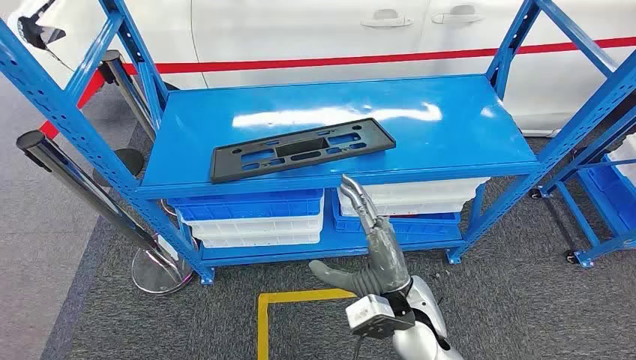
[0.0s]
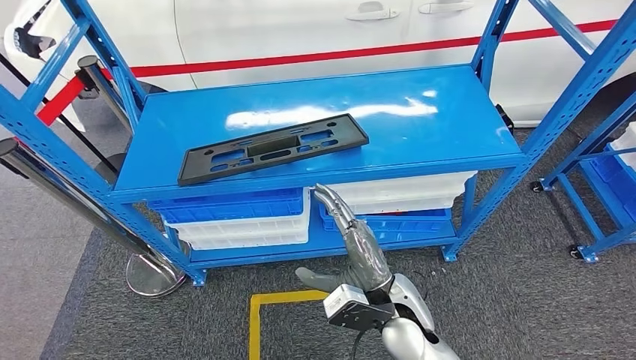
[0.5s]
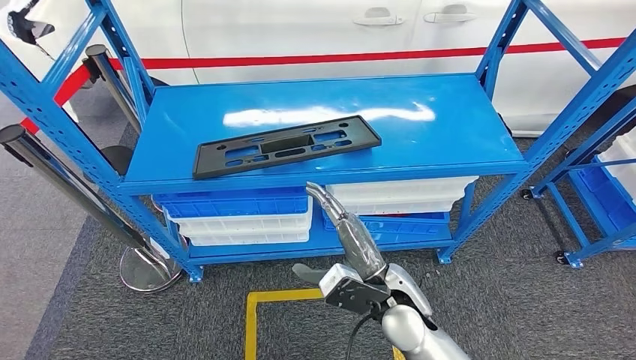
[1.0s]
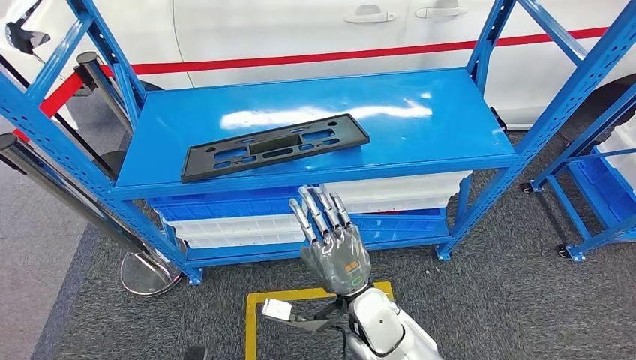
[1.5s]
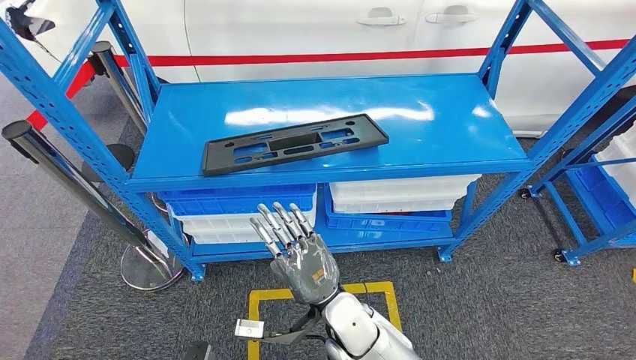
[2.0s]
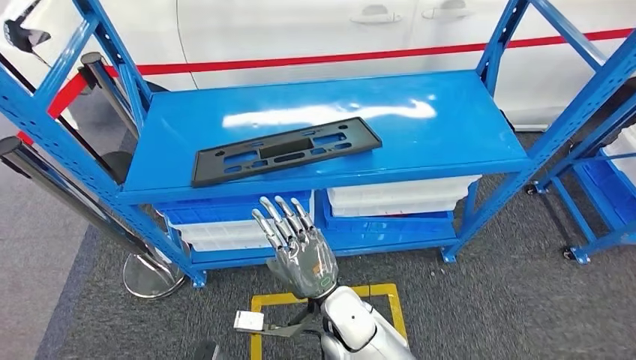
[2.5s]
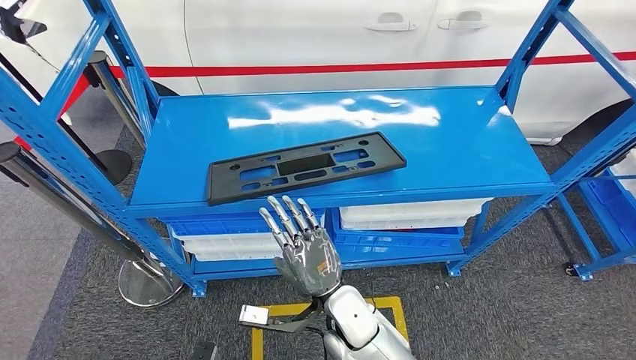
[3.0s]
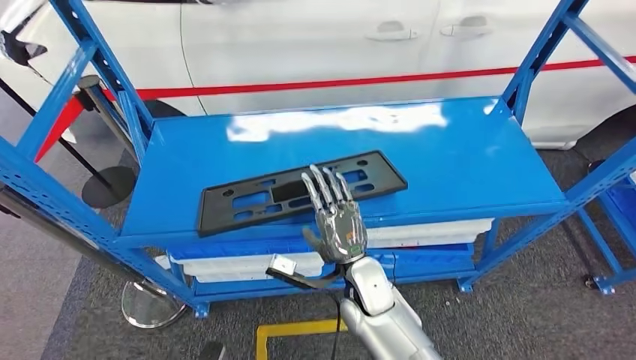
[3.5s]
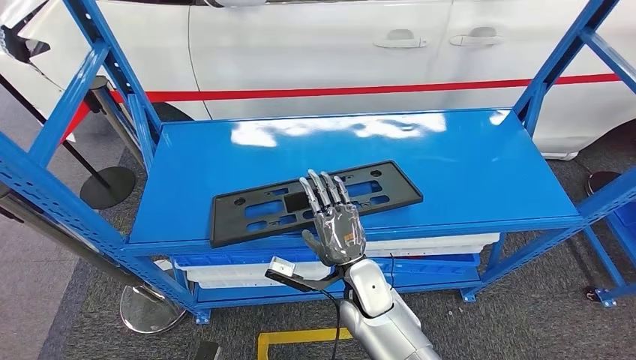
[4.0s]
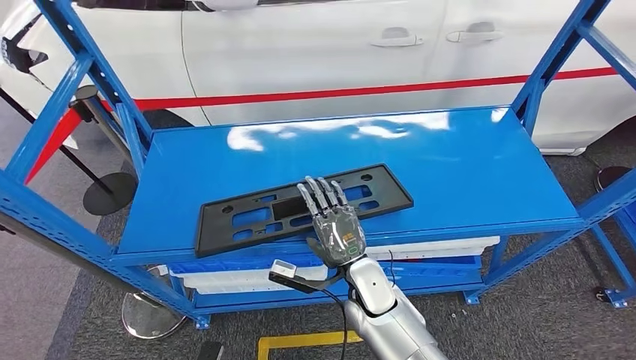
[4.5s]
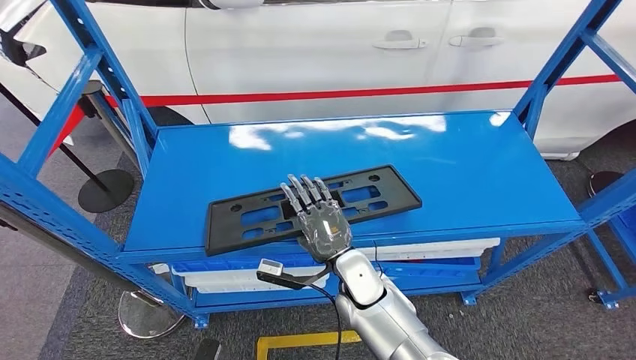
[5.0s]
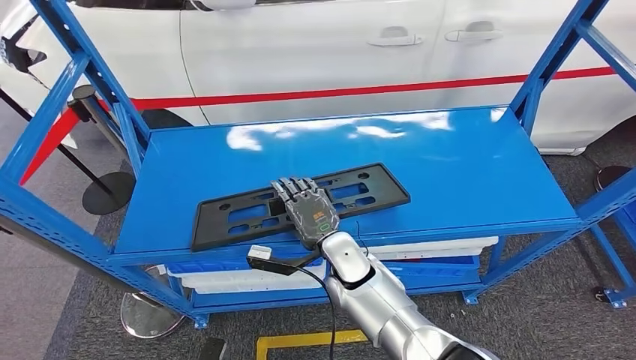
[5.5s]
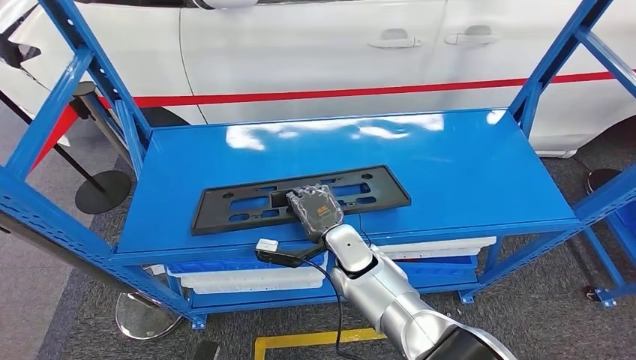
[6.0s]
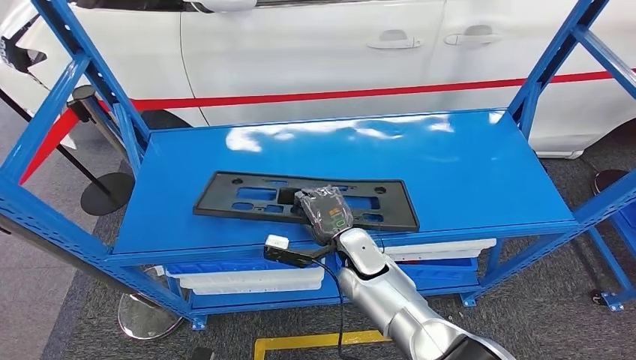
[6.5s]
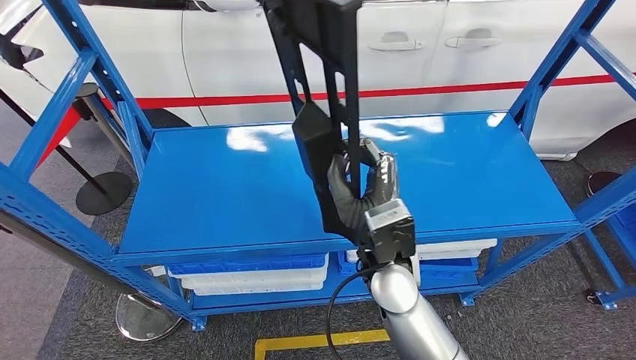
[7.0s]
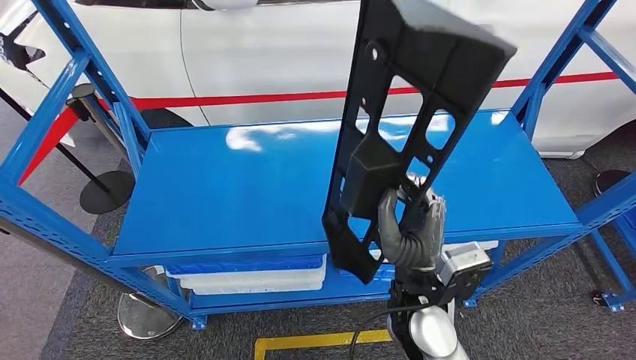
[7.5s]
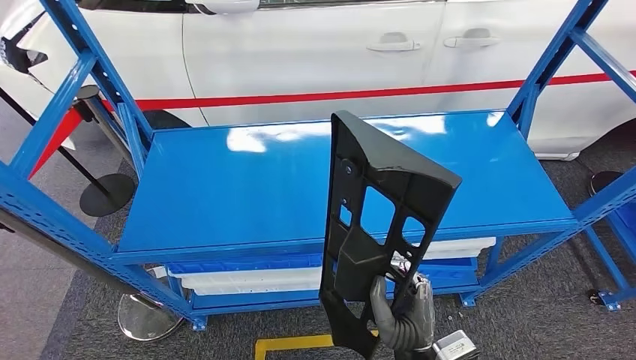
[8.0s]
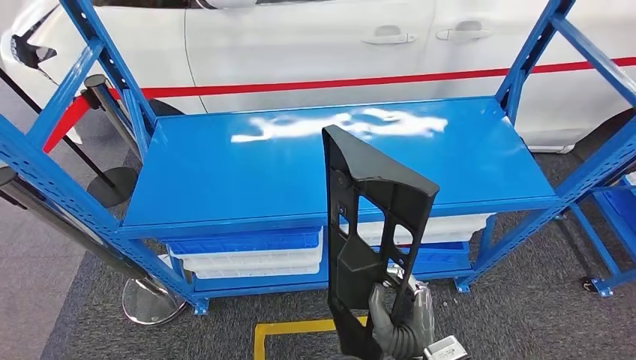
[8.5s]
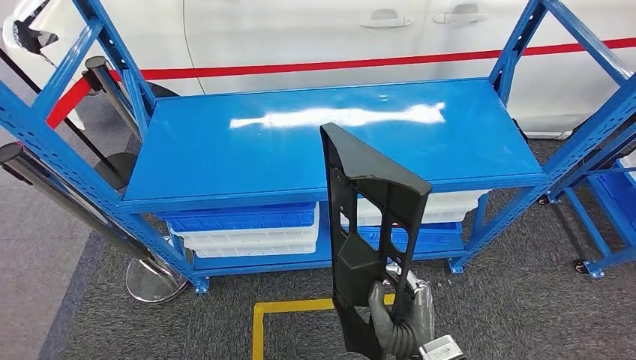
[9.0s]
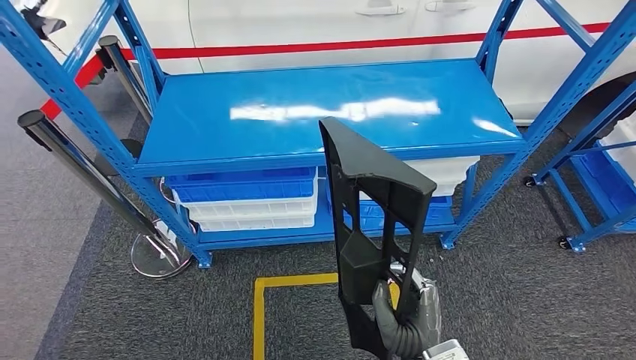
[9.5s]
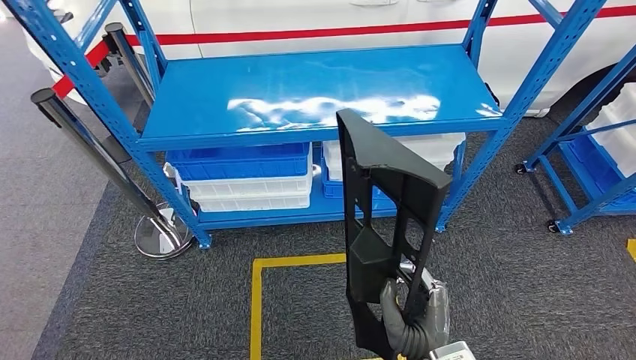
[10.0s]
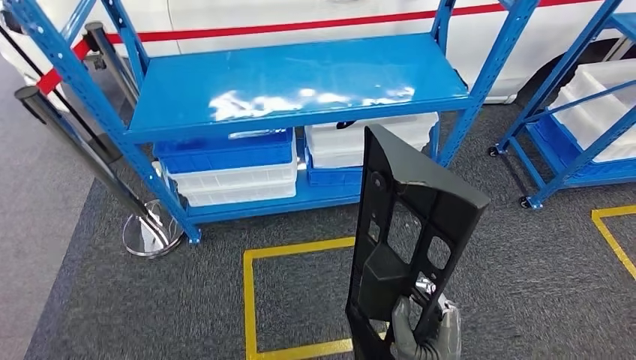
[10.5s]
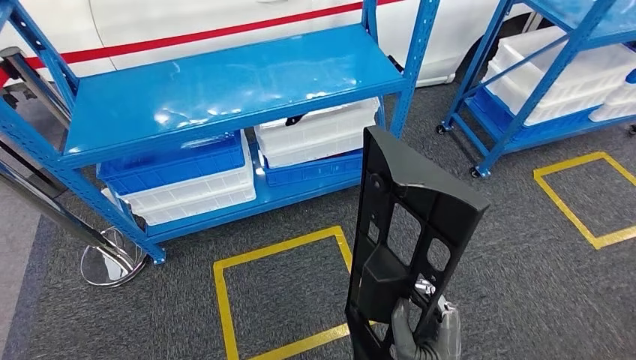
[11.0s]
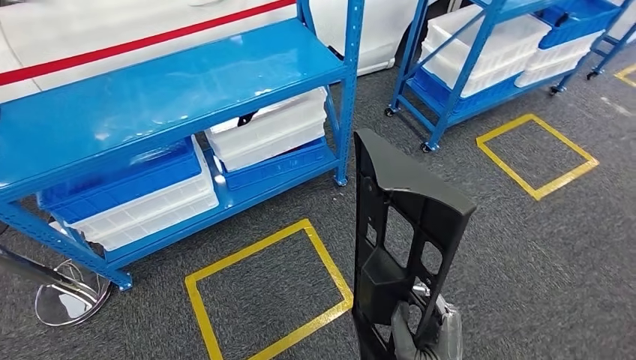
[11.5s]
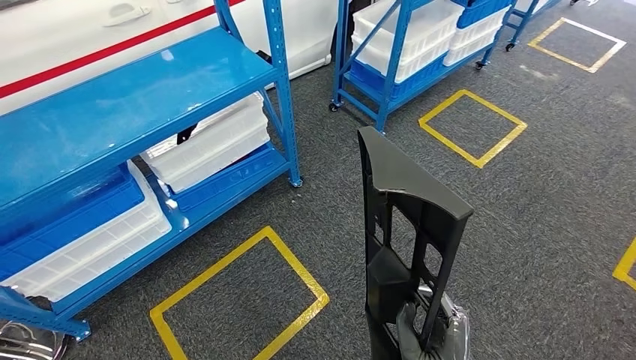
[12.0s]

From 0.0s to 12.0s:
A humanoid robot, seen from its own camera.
Step, from 0.0s to 9.0s: Pick up the large material from the shelf.

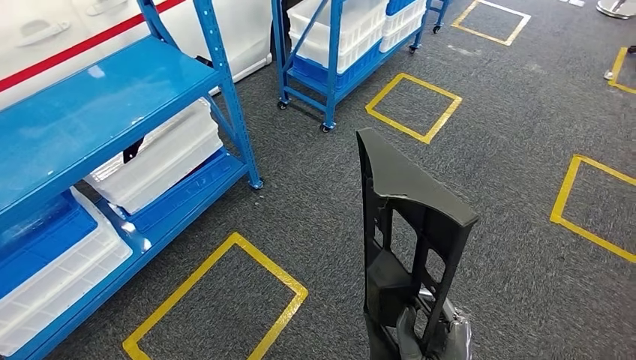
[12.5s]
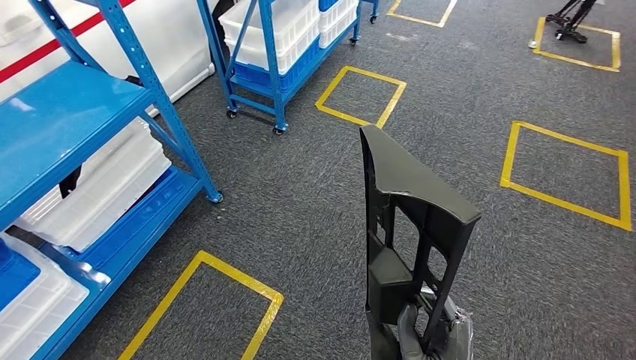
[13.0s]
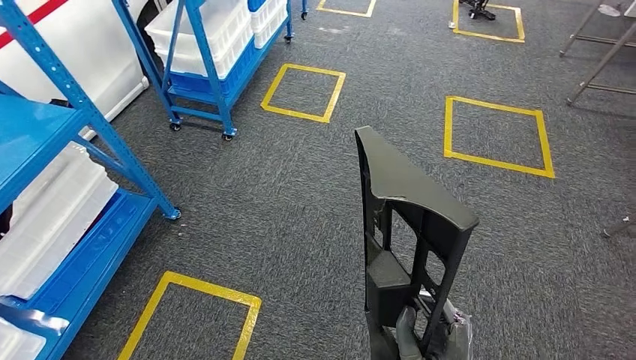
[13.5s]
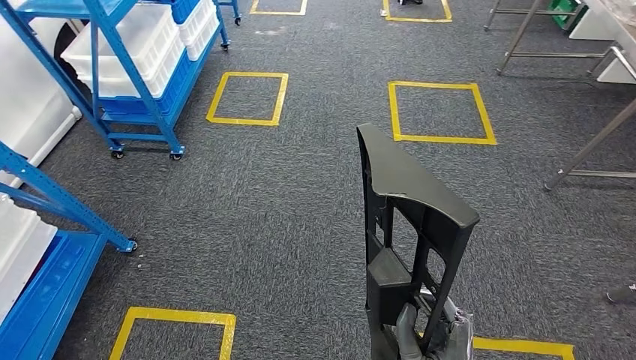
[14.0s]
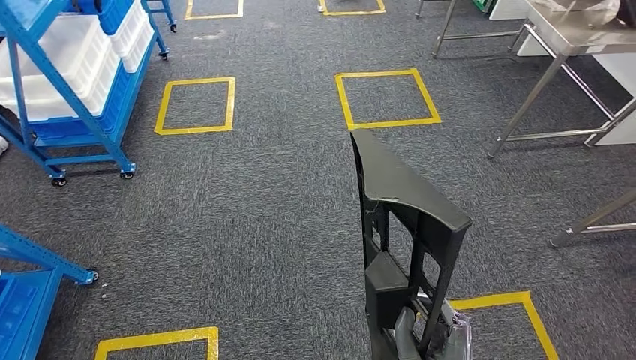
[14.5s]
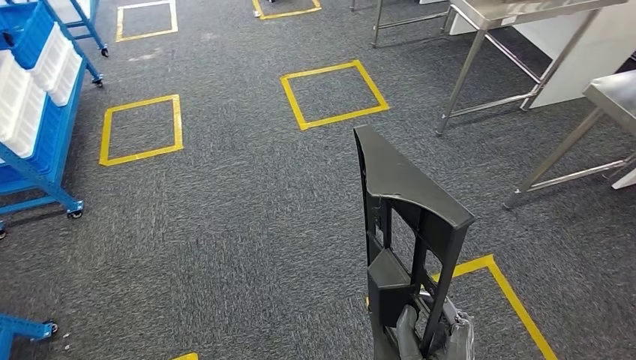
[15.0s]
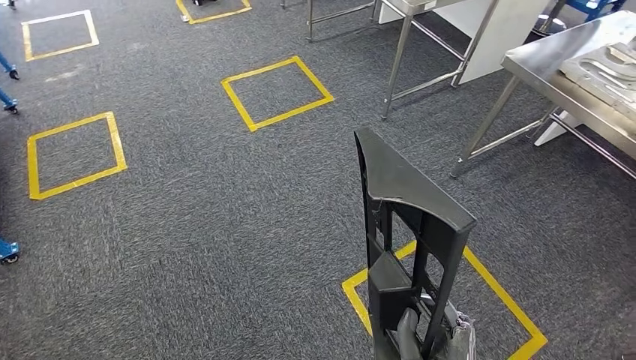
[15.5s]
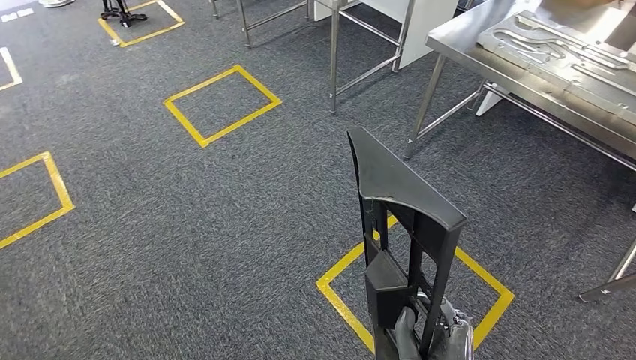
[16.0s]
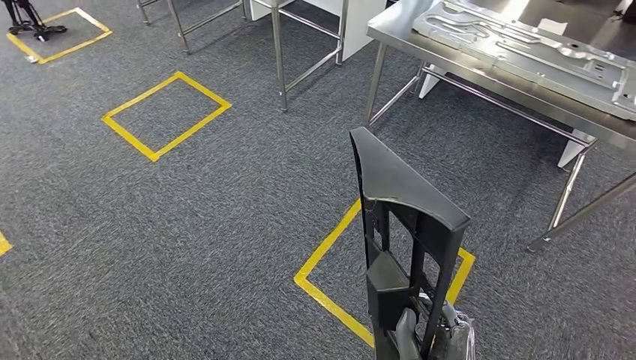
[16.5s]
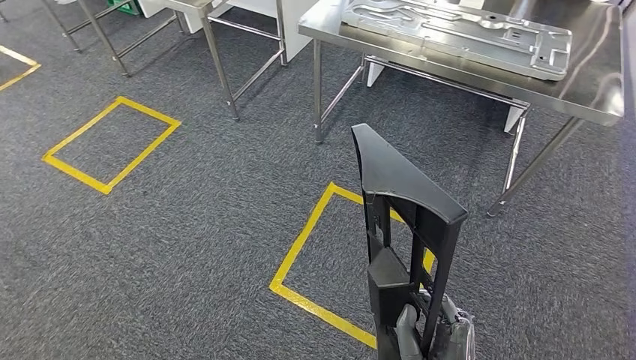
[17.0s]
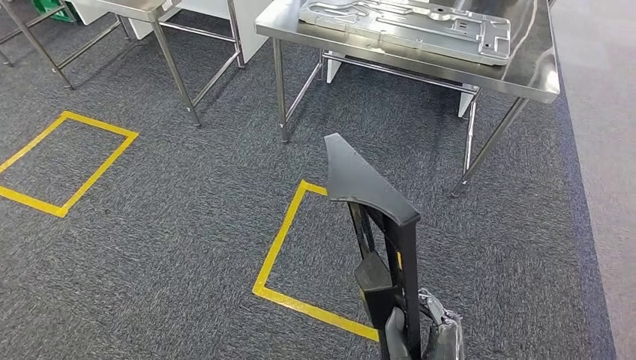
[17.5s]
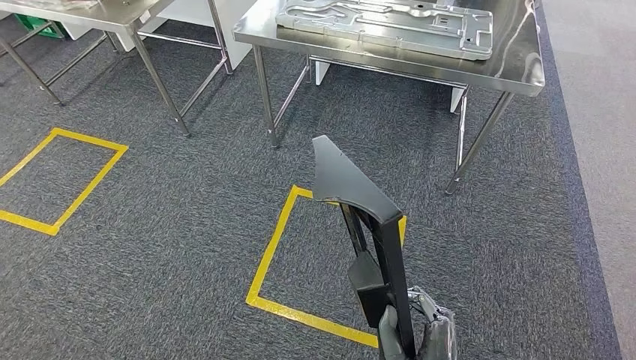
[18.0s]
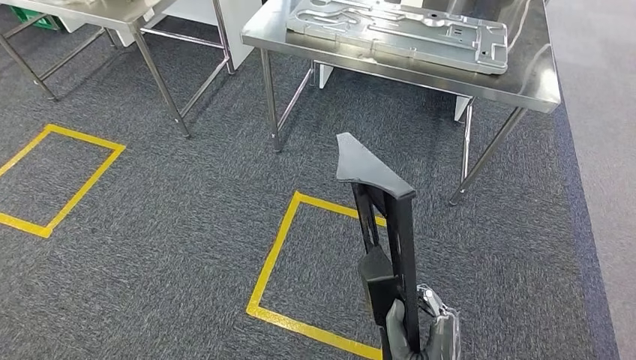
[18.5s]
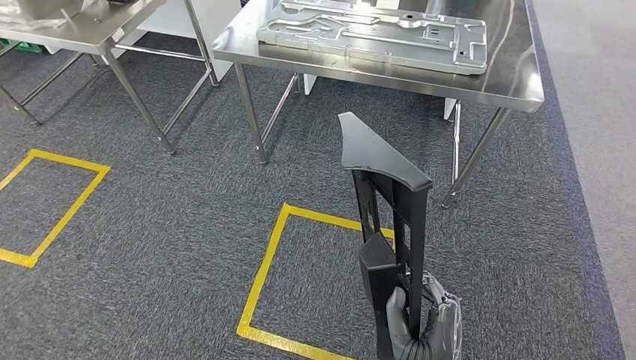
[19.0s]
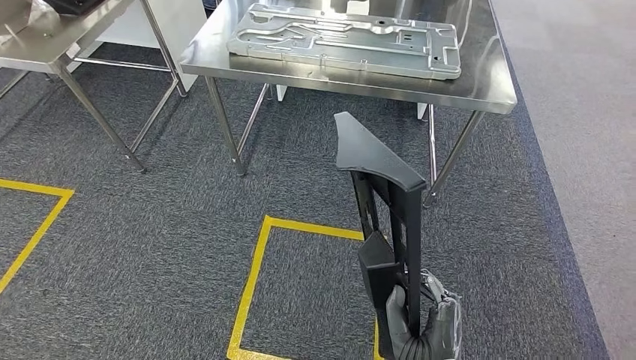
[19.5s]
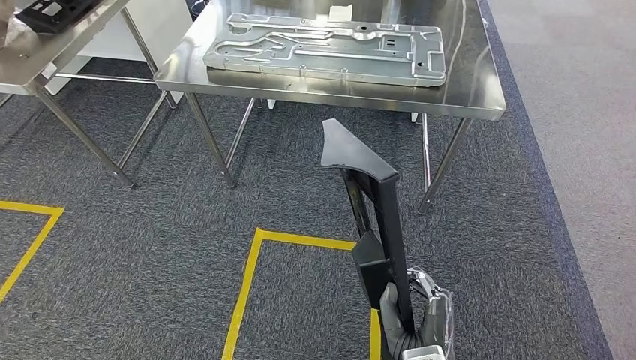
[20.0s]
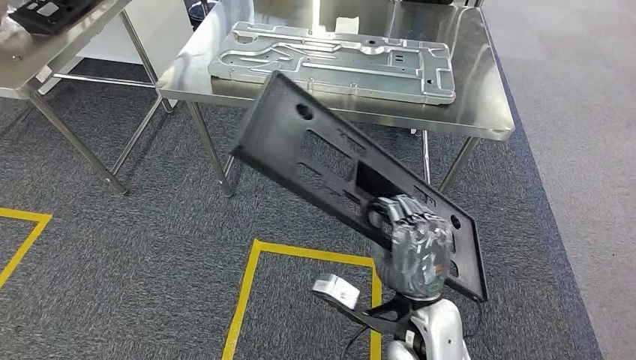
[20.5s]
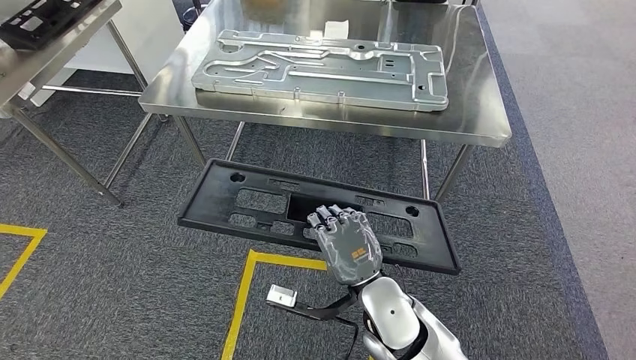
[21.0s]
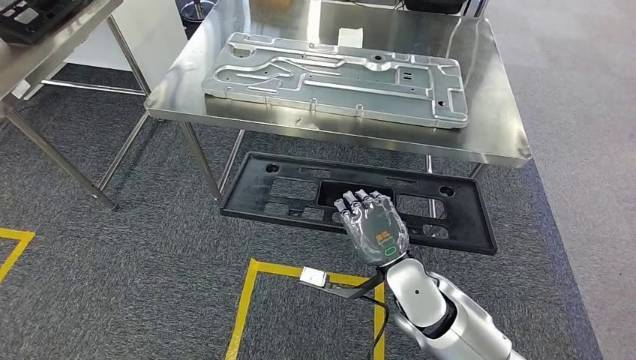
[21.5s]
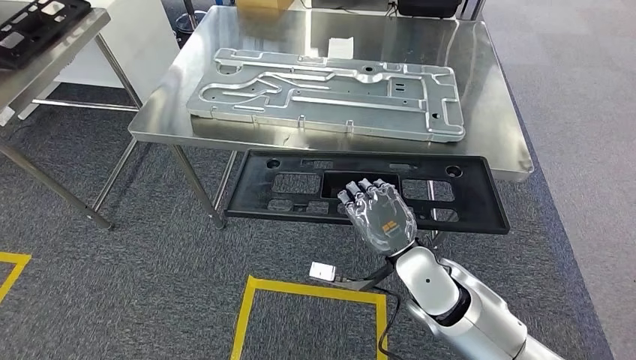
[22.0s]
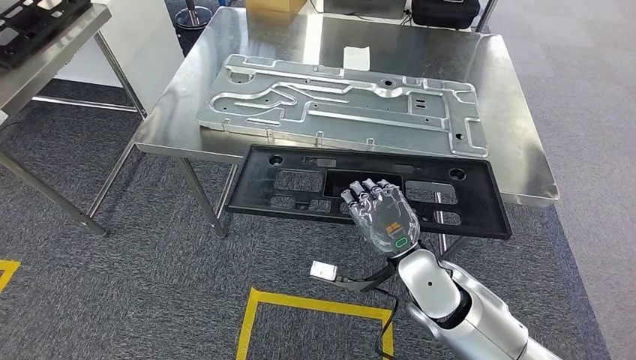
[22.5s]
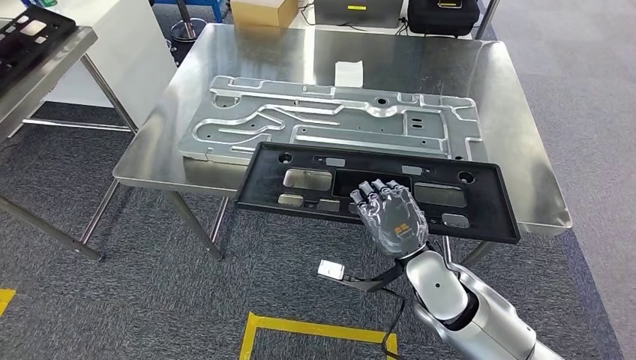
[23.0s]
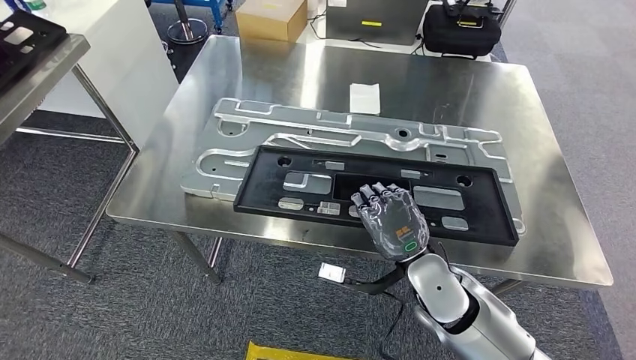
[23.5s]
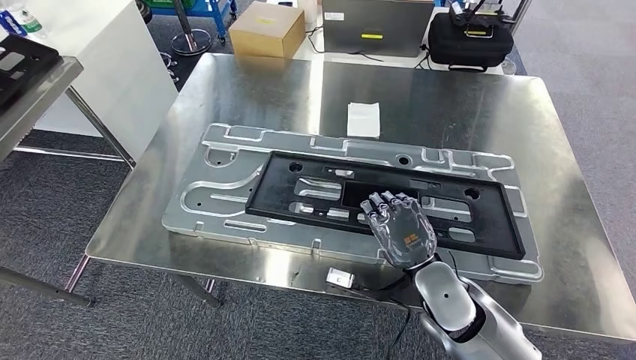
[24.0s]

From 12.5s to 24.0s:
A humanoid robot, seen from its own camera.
Step, from 12.5s to 21.5s: Move the large material to the workbench.
